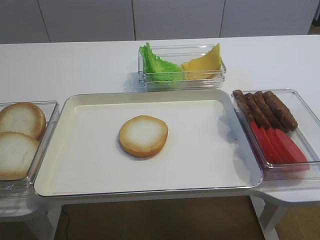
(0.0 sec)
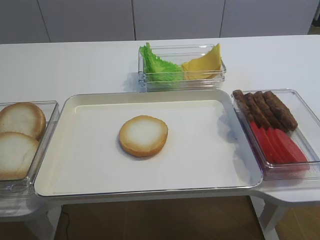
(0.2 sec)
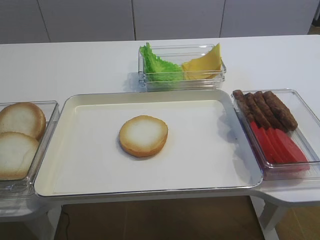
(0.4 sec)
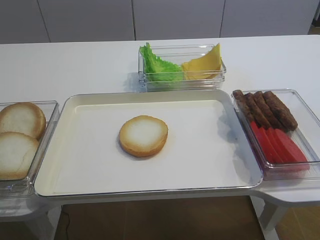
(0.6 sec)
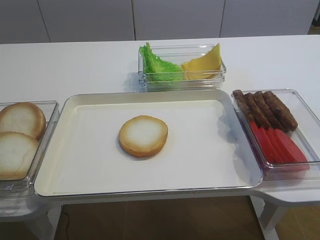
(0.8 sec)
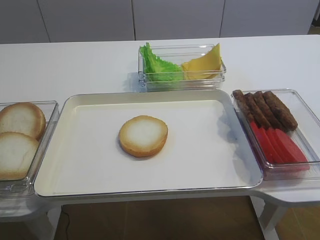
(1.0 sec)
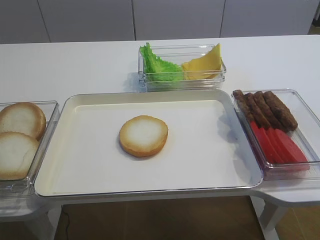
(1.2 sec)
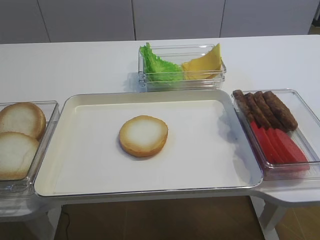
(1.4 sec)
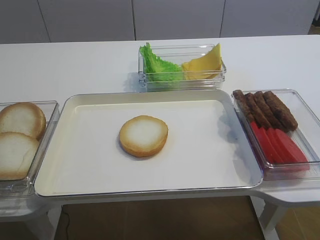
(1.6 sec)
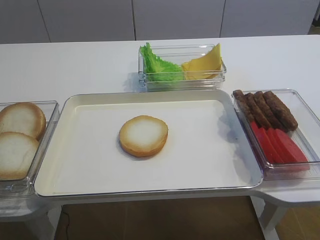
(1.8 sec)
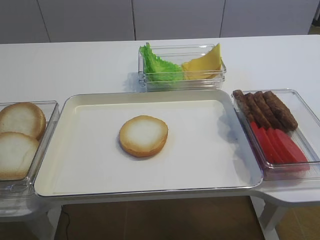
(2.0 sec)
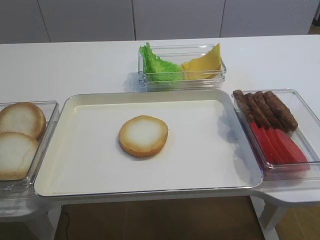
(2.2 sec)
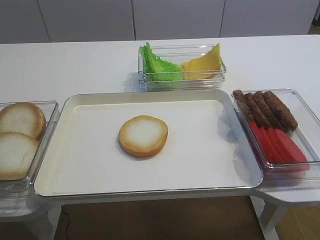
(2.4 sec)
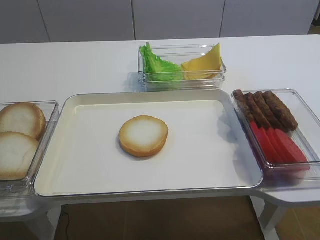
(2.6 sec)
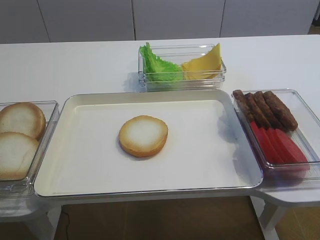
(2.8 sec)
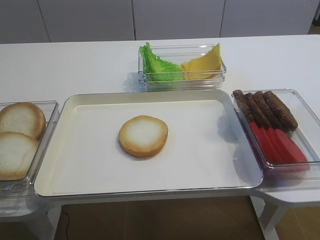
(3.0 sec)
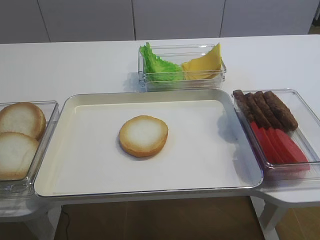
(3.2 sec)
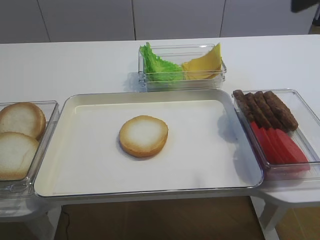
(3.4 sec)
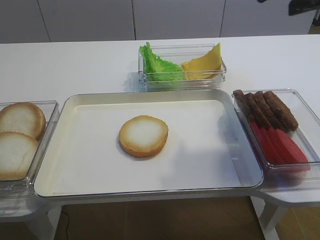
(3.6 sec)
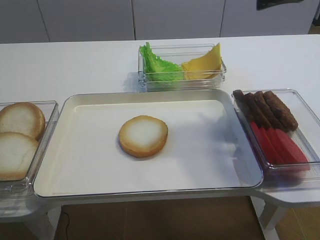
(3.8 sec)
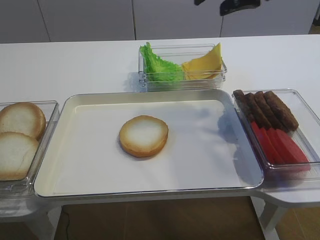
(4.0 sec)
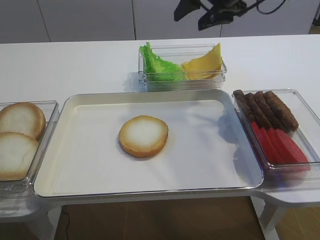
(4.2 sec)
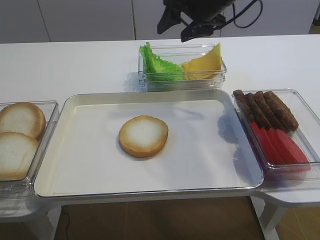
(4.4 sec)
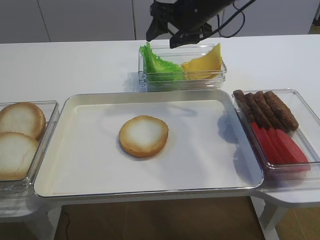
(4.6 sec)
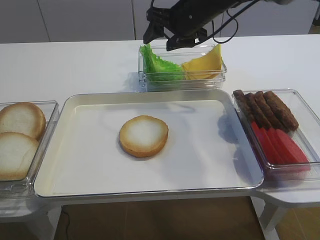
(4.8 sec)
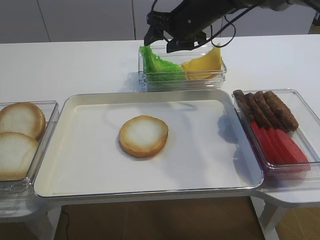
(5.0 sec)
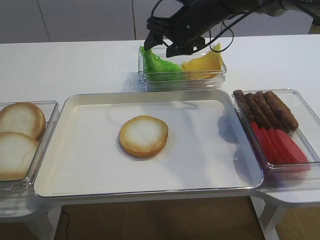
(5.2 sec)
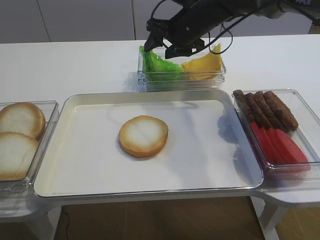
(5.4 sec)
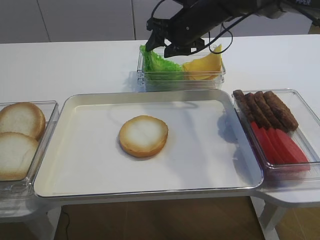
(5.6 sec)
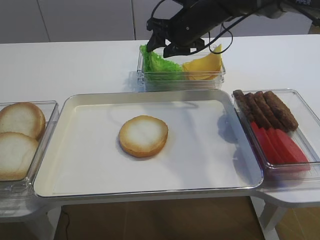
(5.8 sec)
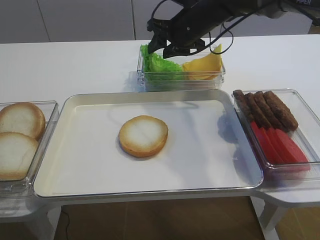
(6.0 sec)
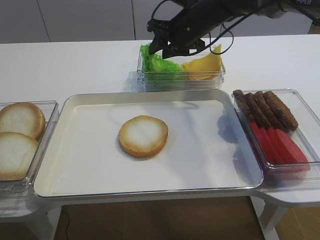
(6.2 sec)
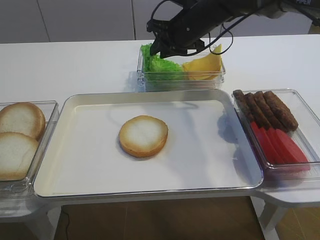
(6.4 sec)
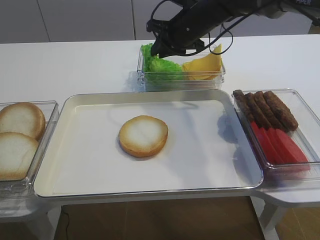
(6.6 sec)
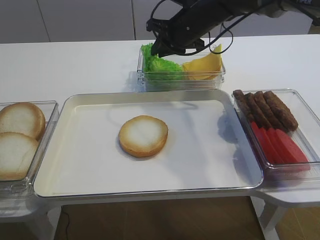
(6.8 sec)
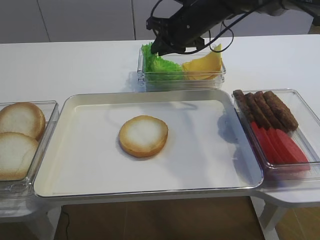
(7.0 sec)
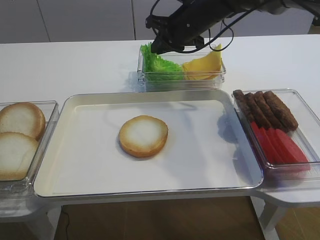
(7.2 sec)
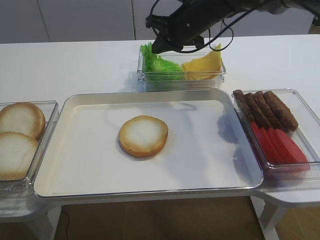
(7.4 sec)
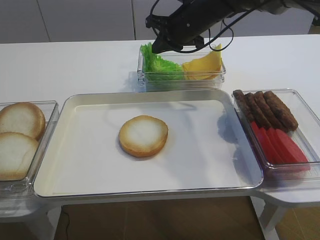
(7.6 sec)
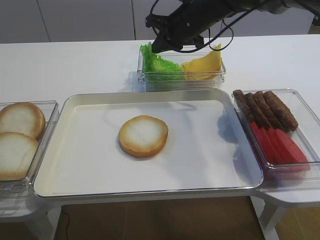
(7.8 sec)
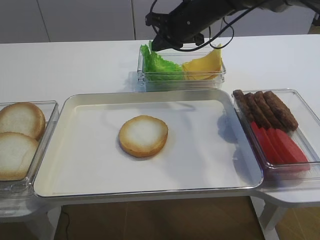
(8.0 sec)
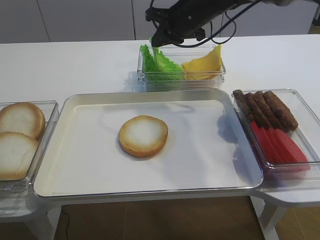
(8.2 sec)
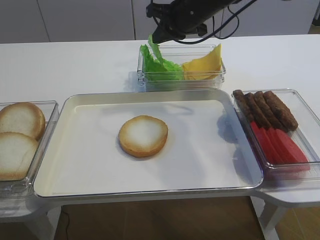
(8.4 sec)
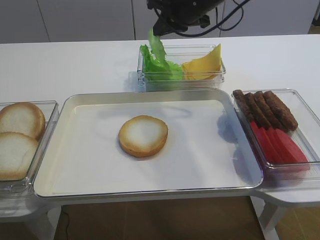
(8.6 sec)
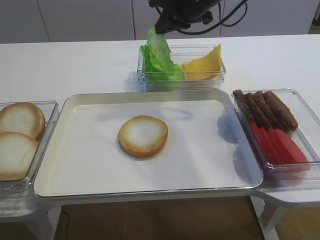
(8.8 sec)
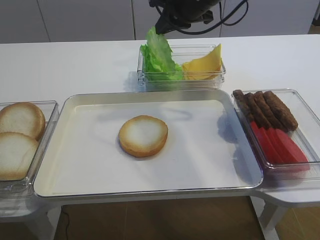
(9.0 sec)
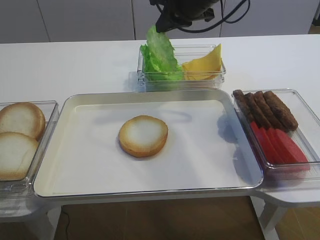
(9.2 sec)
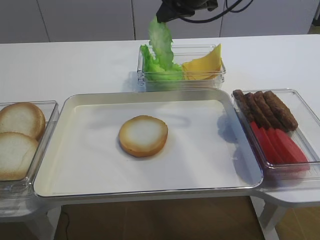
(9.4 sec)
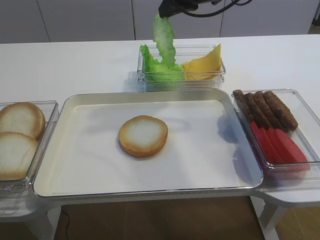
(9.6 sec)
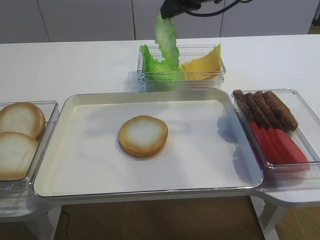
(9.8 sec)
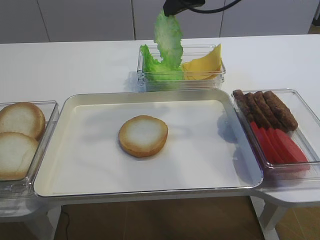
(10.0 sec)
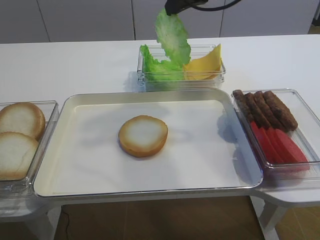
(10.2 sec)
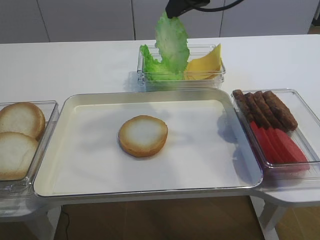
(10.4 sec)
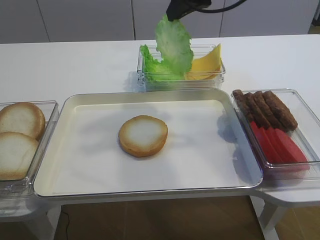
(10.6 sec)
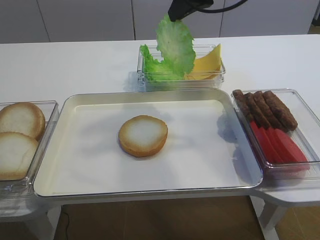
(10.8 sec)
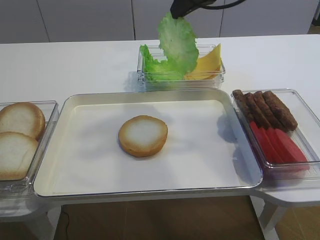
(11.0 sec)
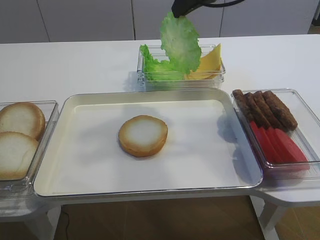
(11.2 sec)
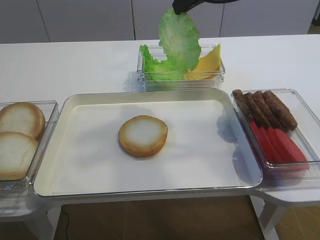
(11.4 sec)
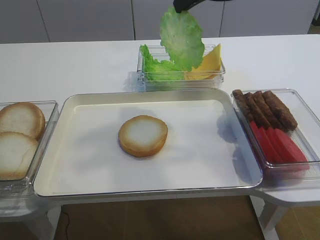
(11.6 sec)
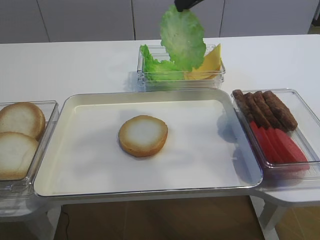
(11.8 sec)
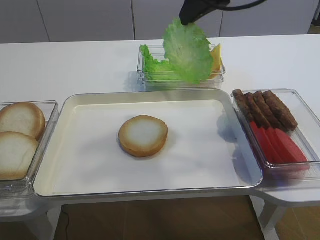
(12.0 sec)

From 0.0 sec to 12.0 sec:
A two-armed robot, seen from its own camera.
Step, from 0.0 sec to 8.6 sec: Pick up the lettuce leaf with the right gripper.
From 1.6 sec to 3.0 sec: The right gripper shifts approximately 15 cm forward and upward.
From 3.0 sec to 4.4 sec: The right gripper goes approximately 35 cm forward and to the left.
From 4.4 sec to 6.0 sec: The right gripper travels downward by some 5 cm.
From 6.0 sec to 7.6 sec: The right gripper closes up.
From 7.6 sec to 9.0 sec: The right gripper moves upward, roughly 5 cm.
From 9.0 sec to 10.4 sec: The right gripper moves upward, some 5 cm.
From 10.4 sec to 12.0 sec: The grippers move only a little.

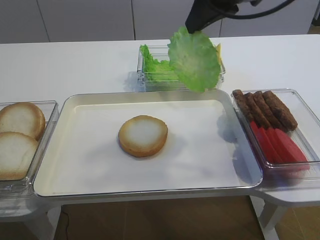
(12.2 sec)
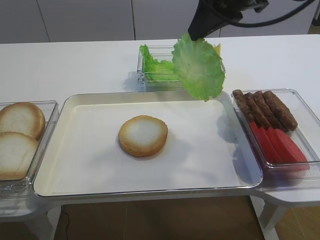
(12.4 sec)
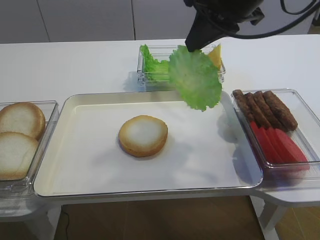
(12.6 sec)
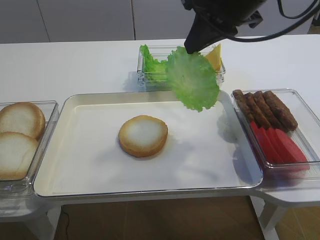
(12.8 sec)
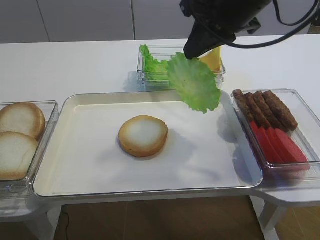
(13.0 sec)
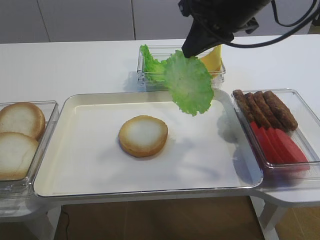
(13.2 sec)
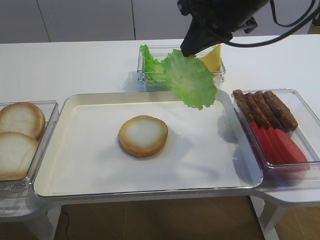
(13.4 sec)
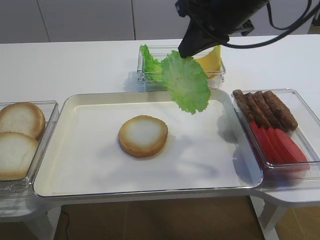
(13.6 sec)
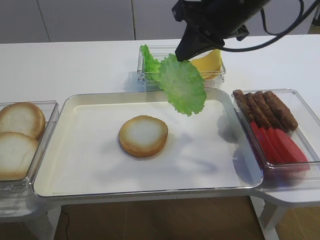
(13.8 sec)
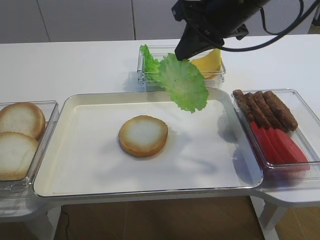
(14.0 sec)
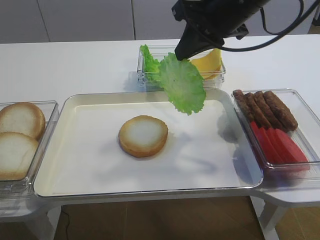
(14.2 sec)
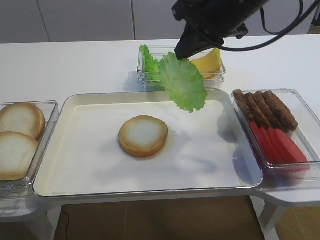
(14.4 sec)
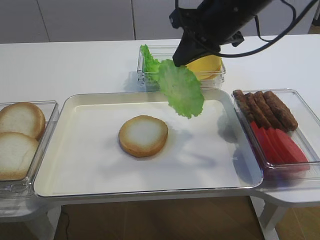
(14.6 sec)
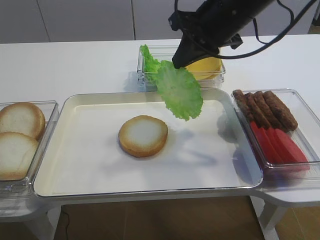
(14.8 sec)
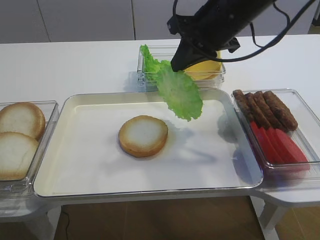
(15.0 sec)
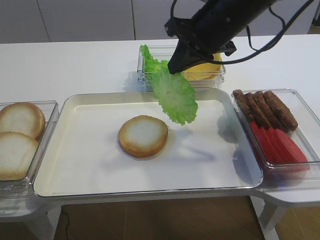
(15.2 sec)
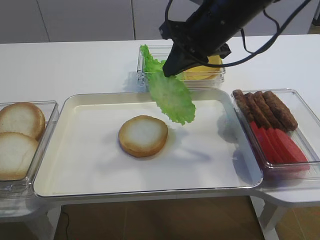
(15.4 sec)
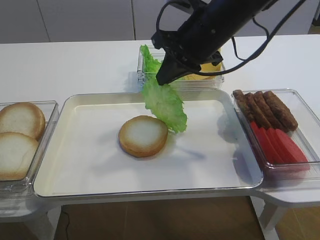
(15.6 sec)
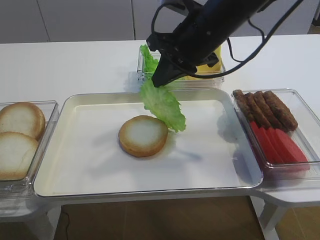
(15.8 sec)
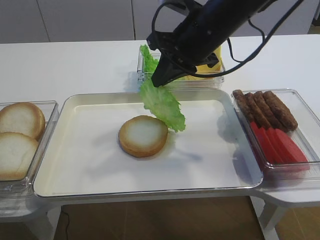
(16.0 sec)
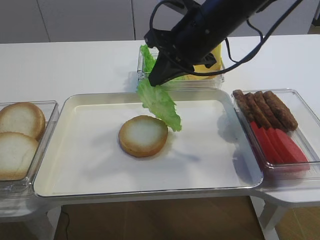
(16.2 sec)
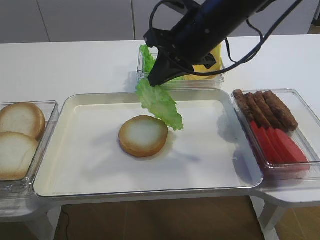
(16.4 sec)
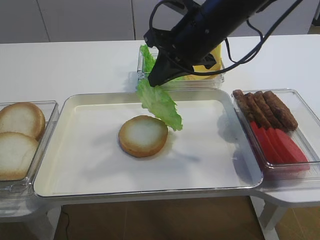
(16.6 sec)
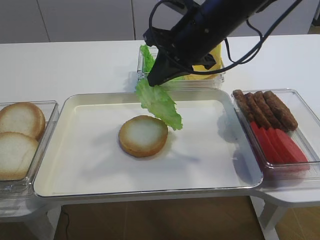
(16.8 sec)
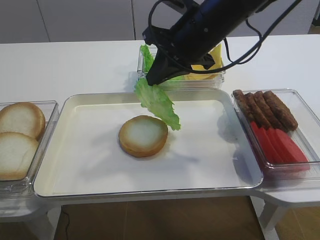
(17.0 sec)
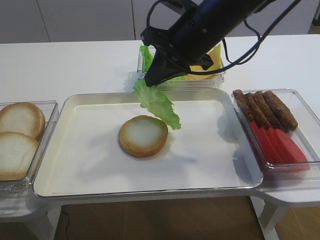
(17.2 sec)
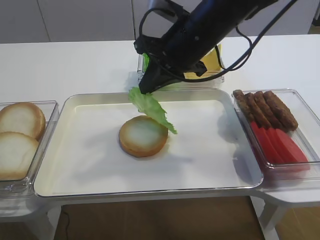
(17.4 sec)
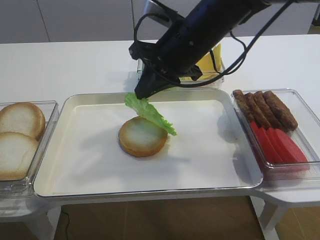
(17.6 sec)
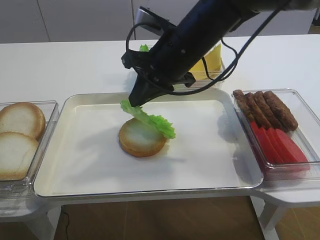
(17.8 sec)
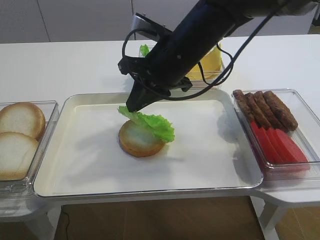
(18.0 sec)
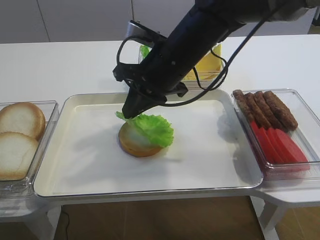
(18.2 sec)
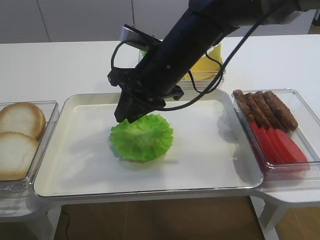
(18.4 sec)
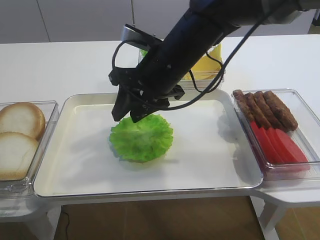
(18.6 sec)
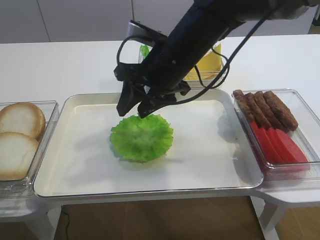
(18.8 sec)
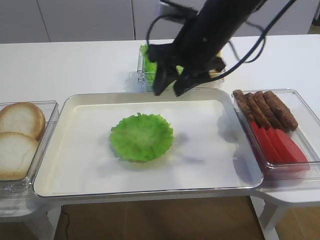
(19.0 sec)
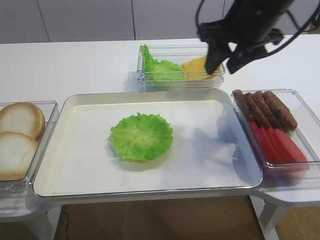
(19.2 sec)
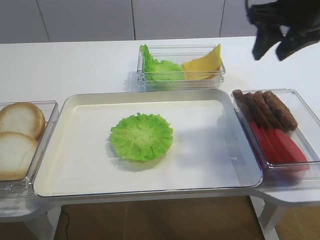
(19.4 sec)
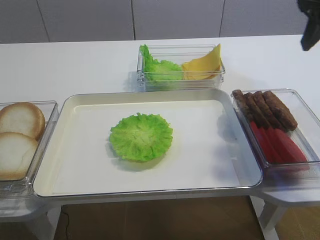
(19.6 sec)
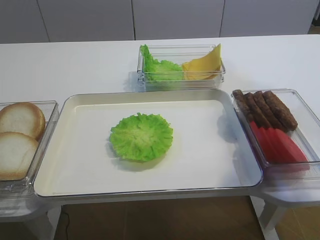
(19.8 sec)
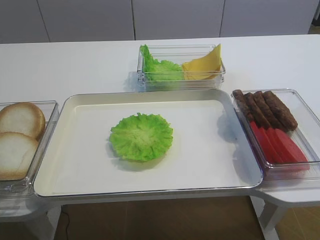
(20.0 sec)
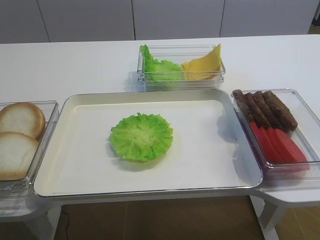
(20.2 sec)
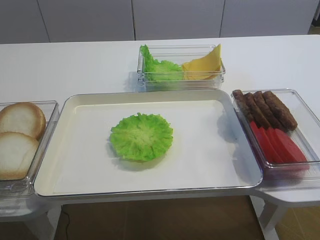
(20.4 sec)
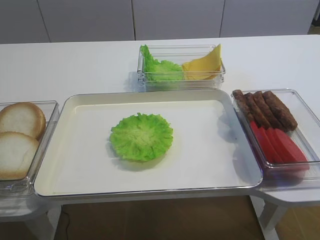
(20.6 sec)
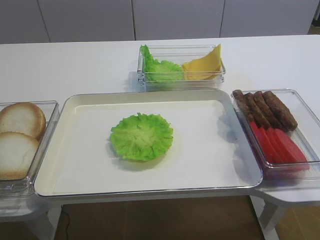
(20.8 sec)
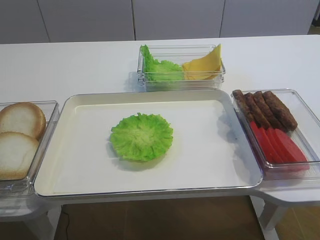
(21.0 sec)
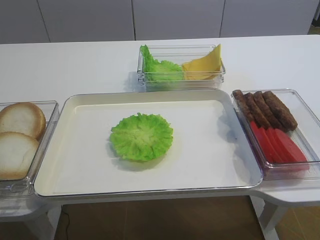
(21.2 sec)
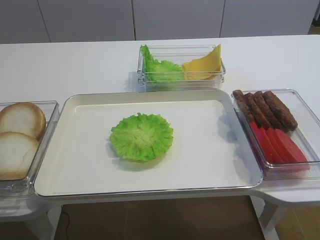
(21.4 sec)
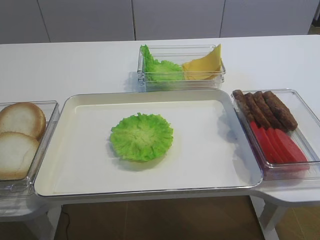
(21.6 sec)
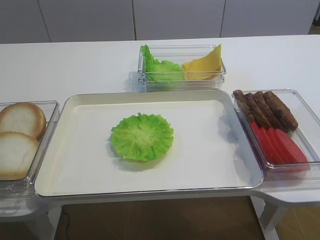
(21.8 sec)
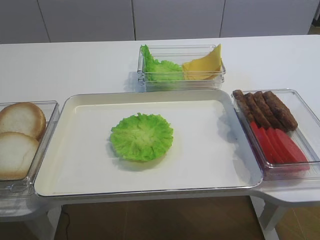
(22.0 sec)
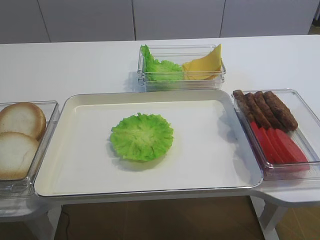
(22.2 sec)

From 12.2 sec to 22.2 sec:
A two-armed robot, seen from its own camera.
Step, from 12.2 sec to 18.6 sec: Place the lettuce leaf on the bread slice with the right gripper.
From 12.2 sec to 13.6 sec: The grippers stay close to where they were, moving slightly.
From 13.6 sec to 15.0 sec: The grippers stay close to where they were, moving slightly.
From 15.0 sec to 16.4 sec: The grippers move only a little.
From 16.4 sec to 18.0 sec: The right gripper changes place by about 5 cm.
From 18.0 sec to 19.4 sec: The right gripper travels to the right and upward by about 20 cm, and opens its fingers.
From 19.4 sec to 20.8 sec: The right gripper goes some 35 cm backward.
From 20.8 sec to 22.2 sec: The right gripper travels downward by some 10 cm.
